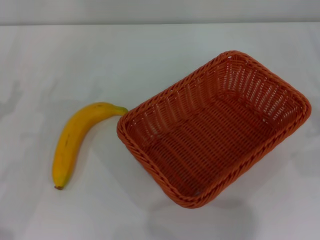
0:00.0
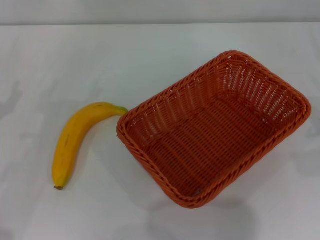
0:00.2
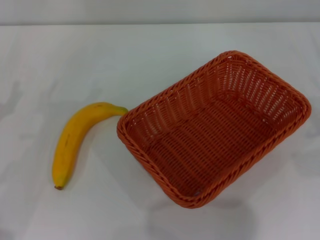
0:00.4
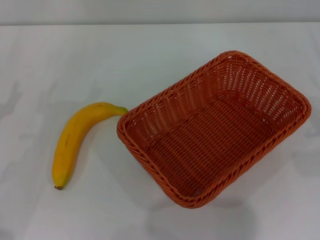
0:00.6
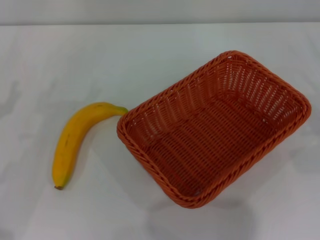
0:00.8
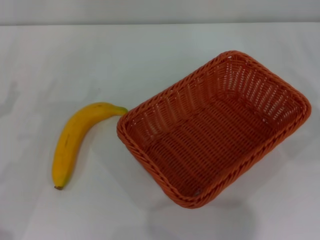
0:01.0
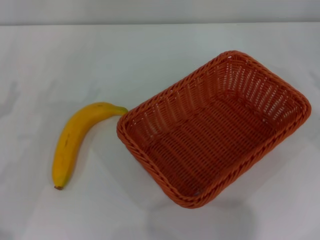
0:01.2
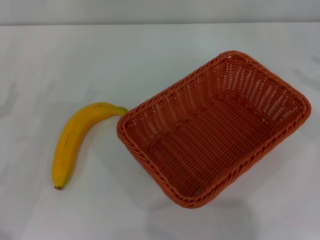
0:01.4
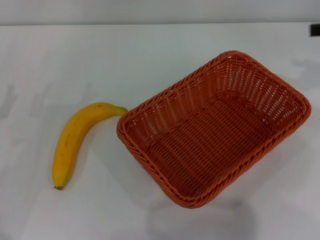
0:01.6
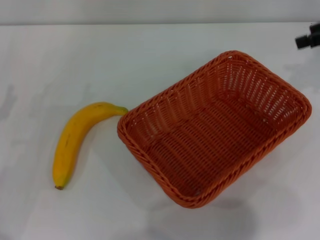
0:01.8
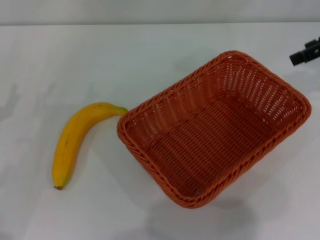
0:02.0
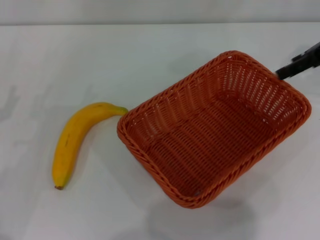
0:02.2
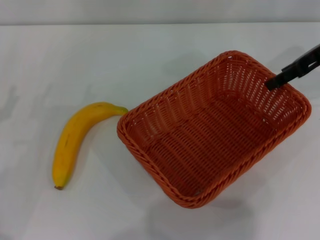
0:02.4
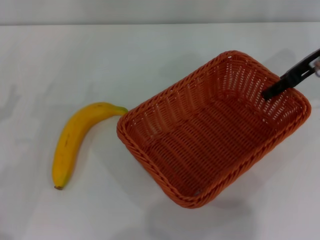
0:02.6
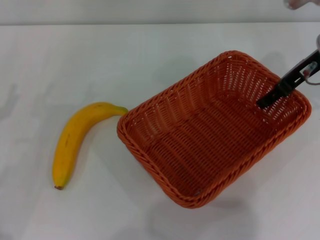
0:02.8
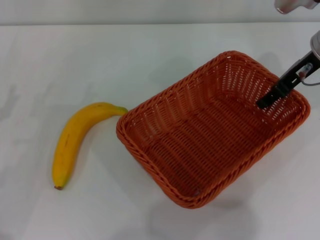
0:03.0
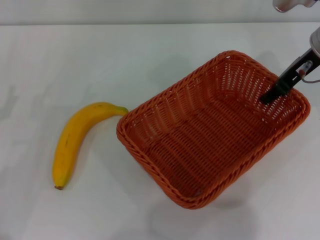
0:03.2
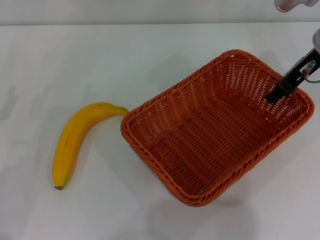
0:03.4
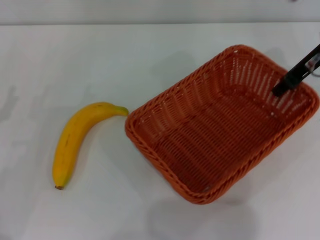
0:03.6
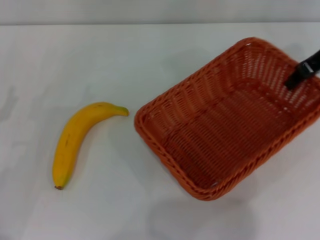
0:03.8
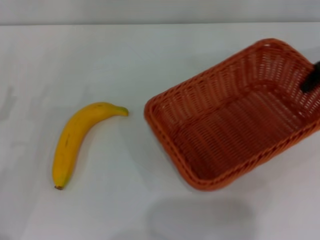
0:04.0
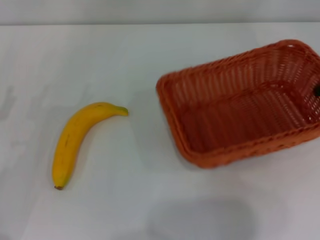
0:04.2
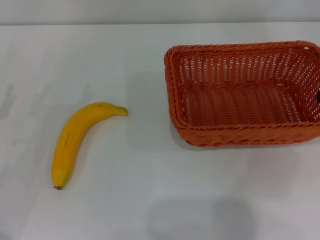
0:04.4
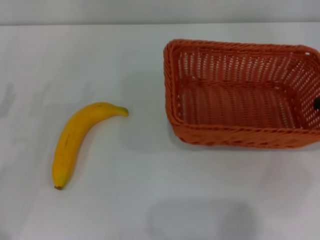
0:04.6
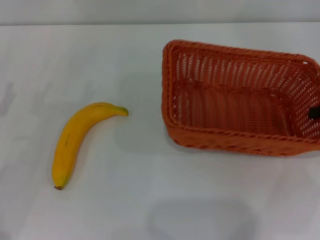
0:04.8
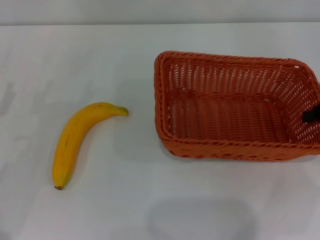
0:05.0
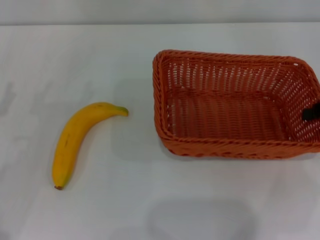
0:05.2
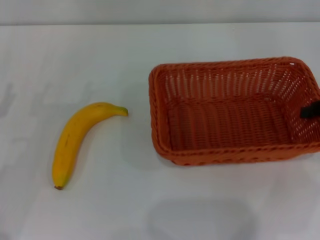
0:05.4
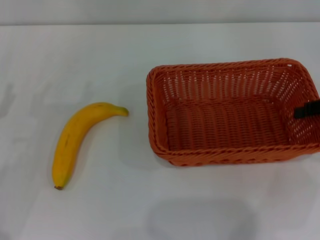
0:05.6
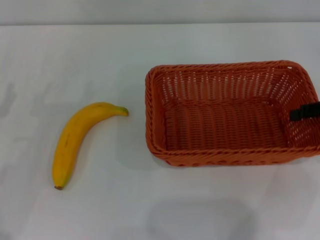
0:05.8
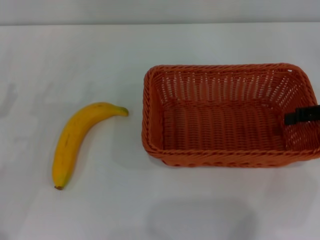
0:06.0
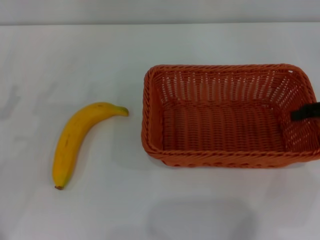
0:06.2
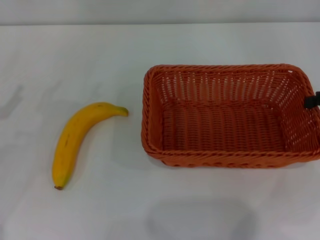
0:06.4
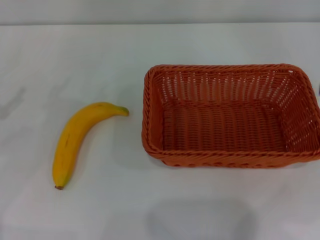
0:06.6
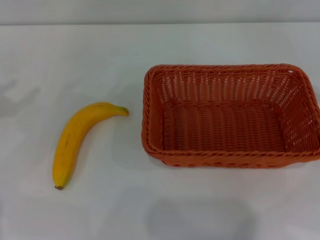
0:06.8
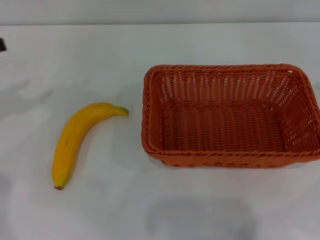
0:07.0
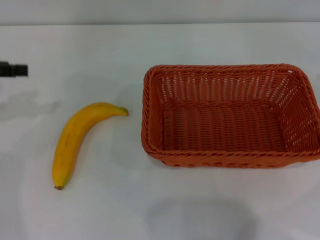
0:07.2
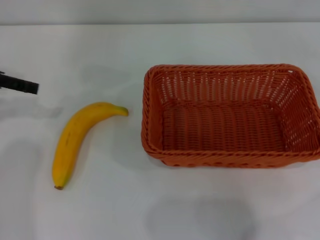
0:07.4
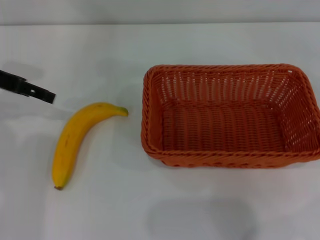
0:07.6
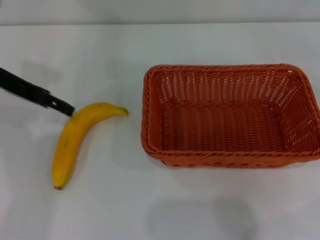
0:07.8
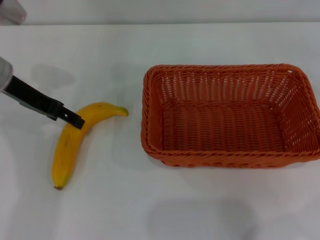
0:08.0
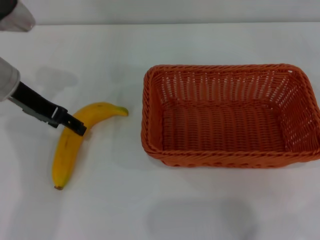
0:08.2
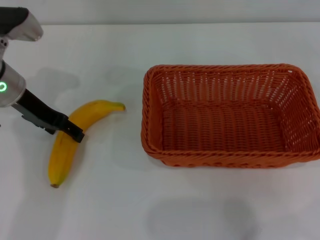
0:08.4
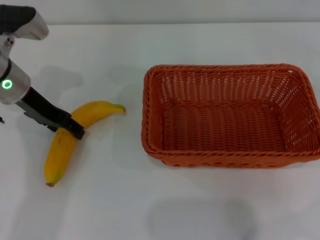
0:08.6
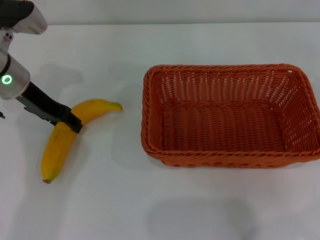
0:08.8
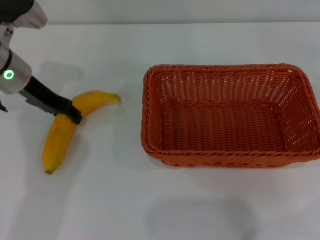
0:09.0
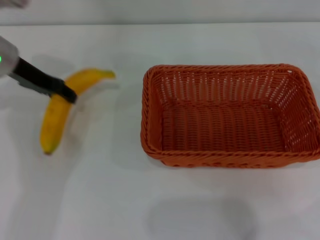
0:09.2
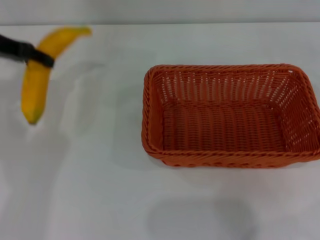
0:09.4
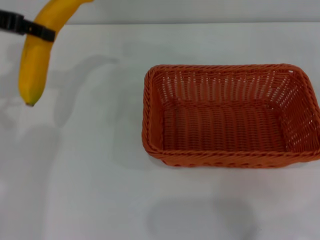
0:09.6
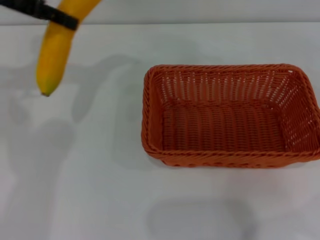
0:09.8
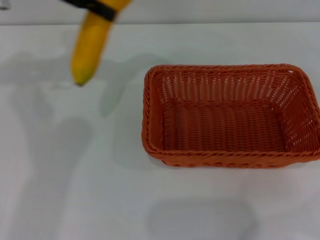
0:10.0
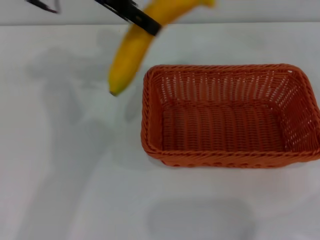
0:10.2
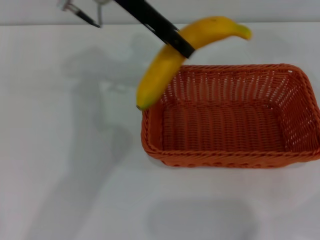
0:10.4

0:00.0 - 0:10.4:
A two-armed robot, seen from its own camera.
Step, 0:00.0 - 0:03.6: Pick up the light basket with the right gripper.
Step, 0:03.8 - 0:06.4: Place the light basket in the center of view with the right gripper.
Step, 0:06.6 - 0:09.0: Pick up the banana with the left gripper.
0:01.4 - 0:03.0: The right gripper moves to the left and forward, some 20 cm.
0:03.0 - 0:04.4: The right gripper travels to the right and backward by roughly 15 cm, and closes up.
0:04.4 - 0:06.0: The right gripper changes place by roughly 5 cm, and opens.
0:06.0 - 0:07.4: The right gripper is displaced to the right by roughly 10 cm. Meanwhile the left gripper heads upward and forward, covering some 15 cm.
0:07.4 - 0:09.0: The left gripper goes some 10 cm to the right and downward, and closes.
0:09.0 - 0:10.4: The left gripper moves to the right and upward, about 20 cm.

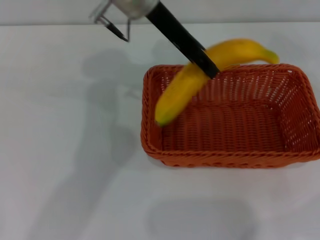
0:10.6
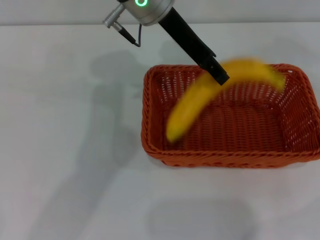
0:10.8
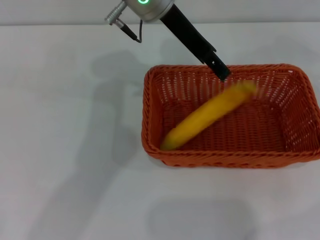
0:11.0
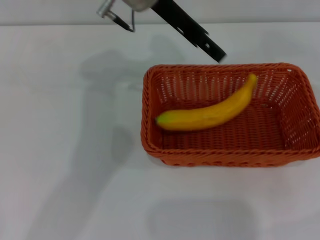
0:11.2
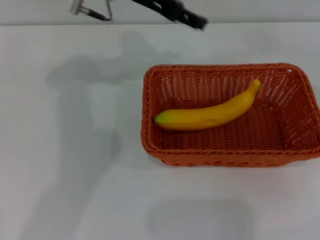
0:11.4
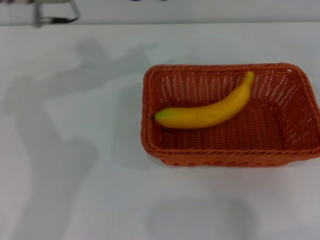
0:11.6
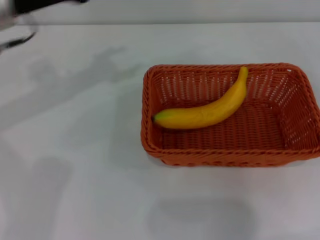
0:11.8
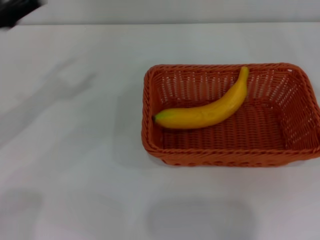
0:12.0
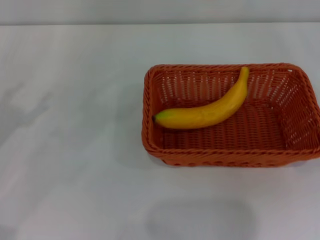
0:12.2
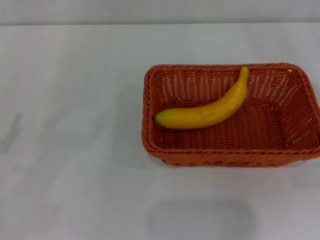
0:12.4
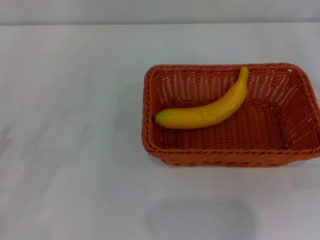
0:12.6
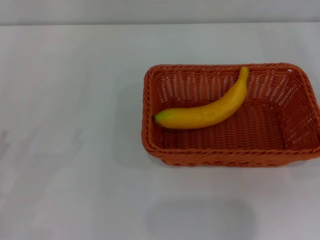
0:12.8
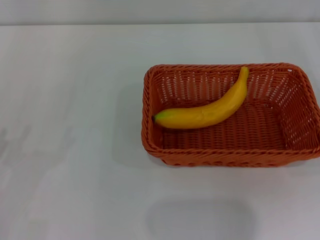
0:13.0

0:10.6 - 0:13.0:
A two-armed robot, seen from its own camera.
0:10.6 - 0:11.8: The left gripper moves to the left, approximately 20 cm, and opens up.
0:11.8 - 0:13.0: The left gripper shifts roughly 30 cm backward, downward and to the left.

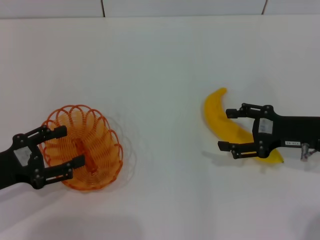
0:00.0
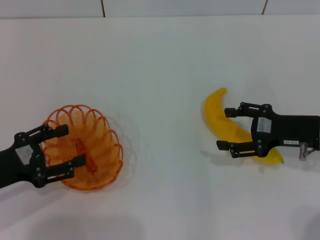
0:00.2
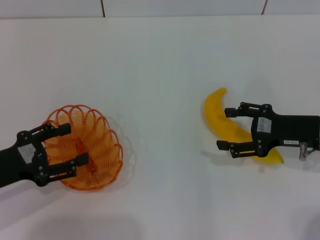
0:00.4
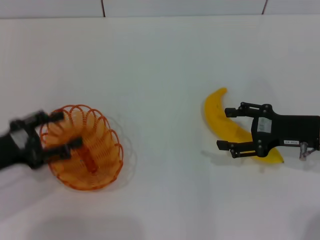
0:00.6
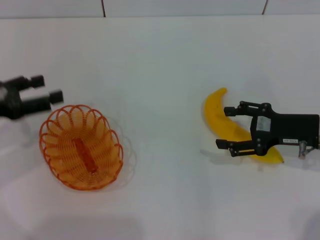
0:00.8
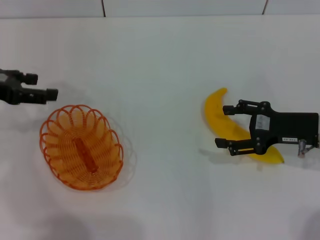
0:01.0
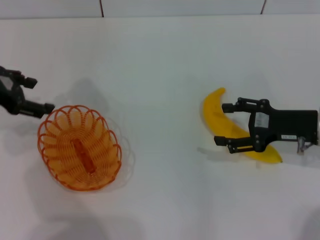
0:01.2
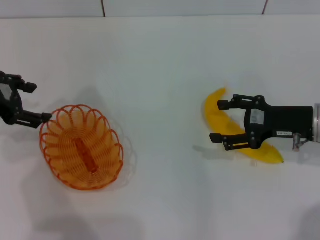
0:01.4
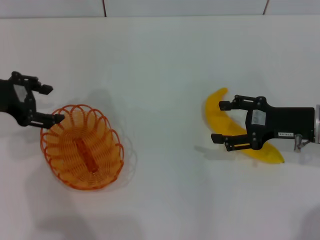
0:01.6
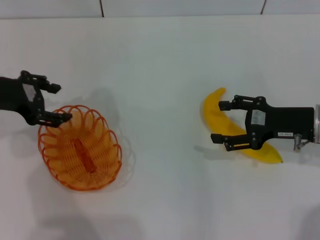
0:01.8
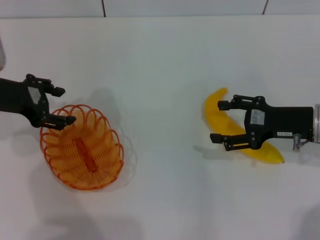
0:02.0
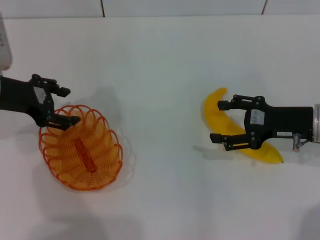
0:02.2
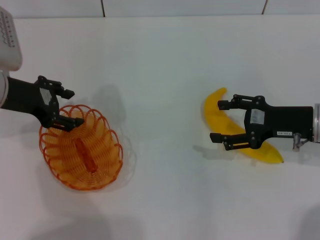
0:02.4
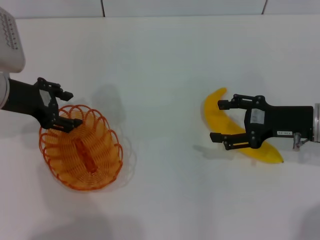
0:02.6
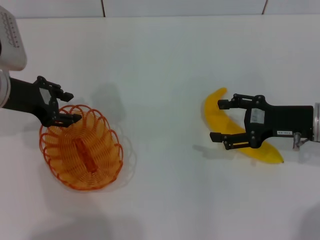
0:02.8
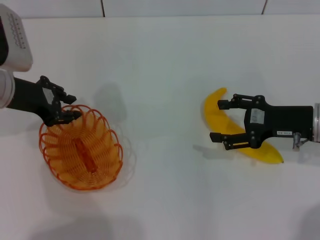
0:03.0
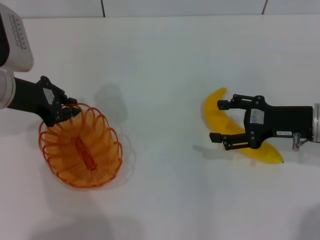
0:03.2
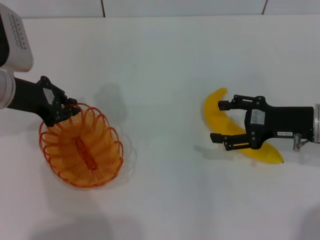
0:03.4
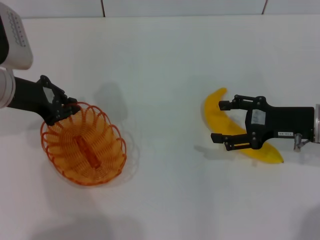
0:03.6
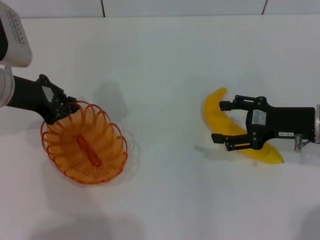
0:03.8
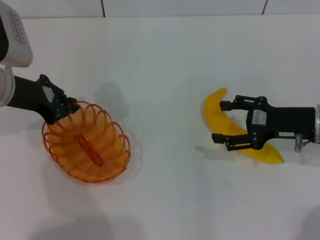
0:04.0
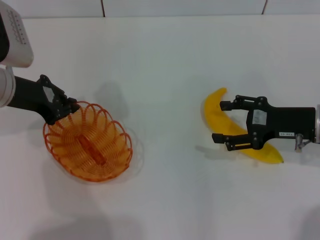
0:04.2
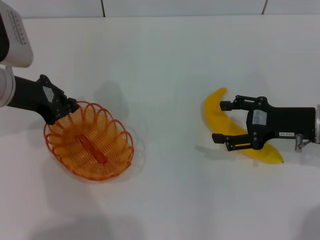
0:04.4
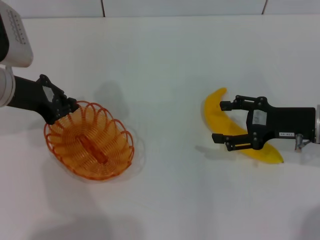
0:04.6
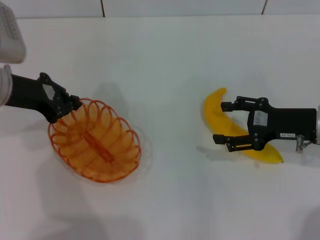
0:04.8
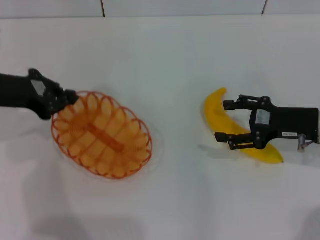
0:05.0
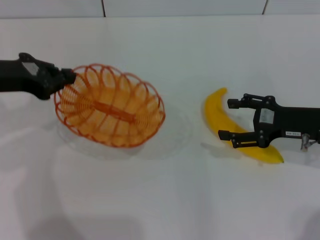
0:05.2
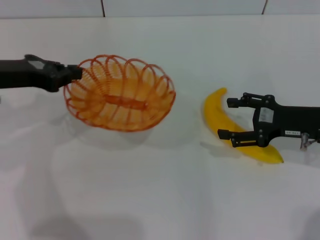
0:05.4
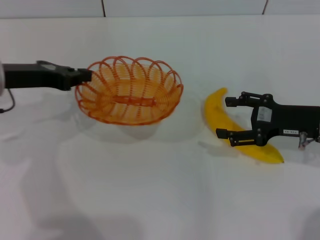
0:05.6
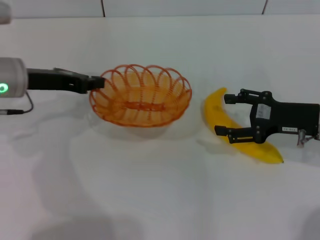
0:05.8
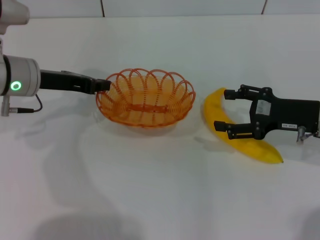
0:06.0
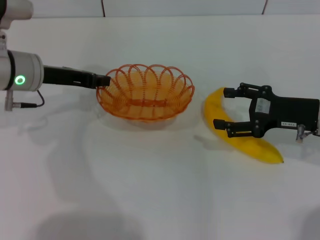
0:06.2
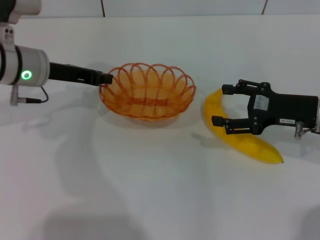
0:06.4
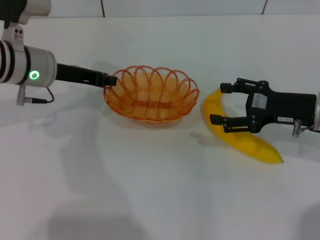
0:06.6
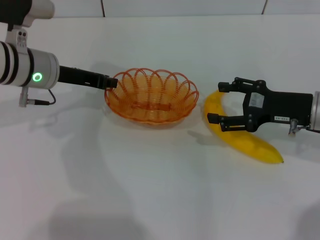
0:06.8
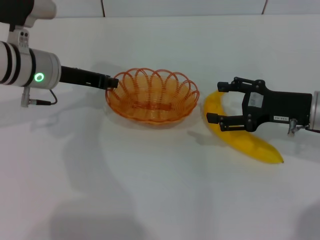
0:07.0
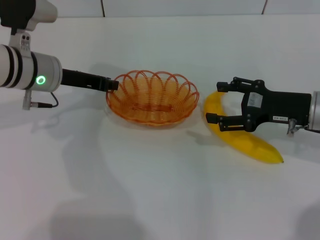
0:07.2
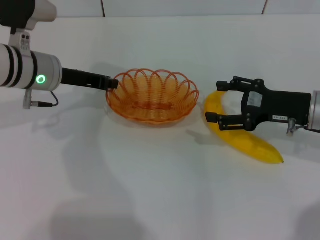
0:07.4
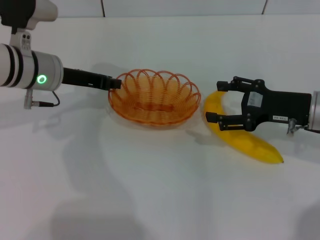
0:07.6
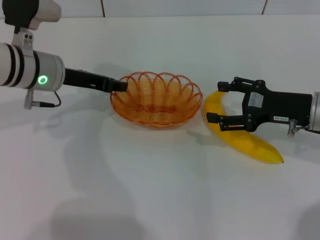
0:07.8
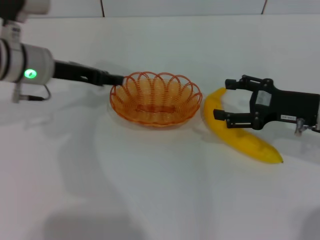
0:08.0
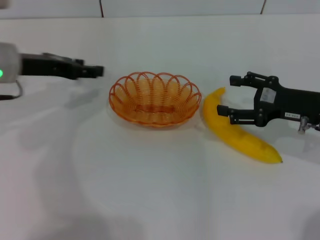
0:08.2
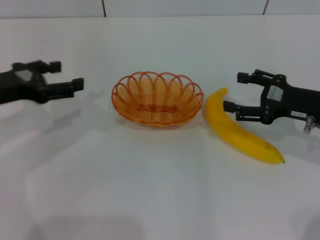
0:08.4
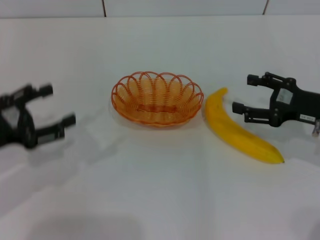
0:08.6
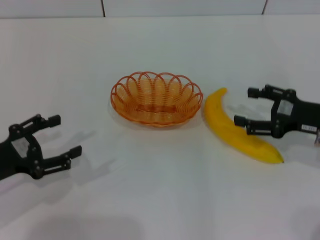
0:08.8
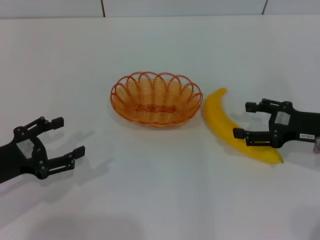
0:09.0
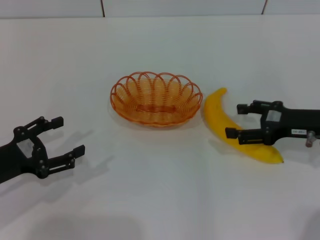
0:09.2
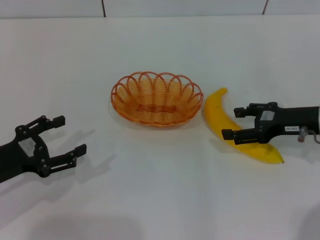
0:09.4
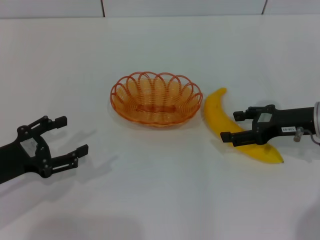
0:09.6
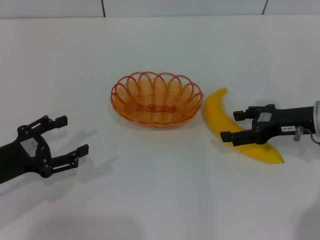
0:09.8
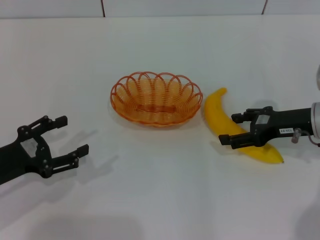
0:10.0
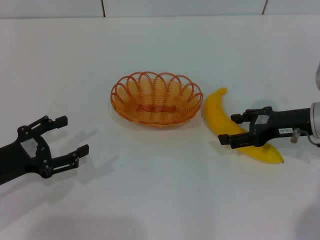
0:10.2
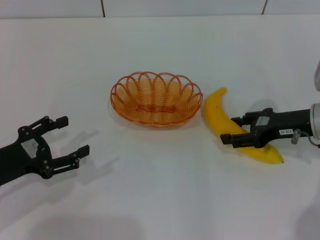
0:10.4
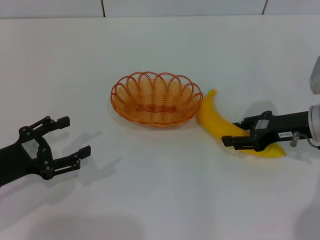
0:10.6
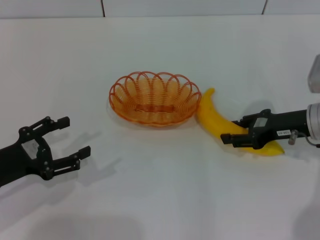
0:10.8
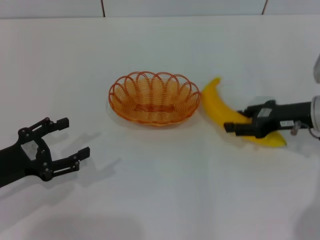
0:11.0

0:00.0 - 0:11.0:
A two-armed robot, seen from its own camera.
Step, 0:00.0 - 0:05.0: Pick up the basket with the left gripper.
Step, 0:05.4 - 0:08.0: Place the basket in the center of view with the left gripper.
0:00.0 - 0:01.6: The left gripper travels forward and upward by about 15 cm.
0:01.6 - 0:03.2: The left gripper moves roughly 5 cm, and closes its fingers.
0:03.2 - 0:04.8: The left gripper closes up.
0:06.2 - 0:07.8: There are only small adjustments of the grippers.
0:07.8 - 0:09.4: The left gripper heads backward, to the left and downward, covering approximately 20 cm, and opens up.
0:09.4 - 0:11.0: The right gripper closes its fingers.
